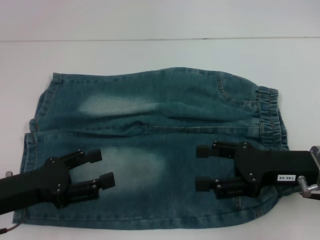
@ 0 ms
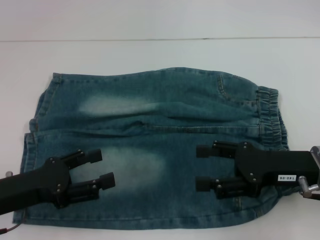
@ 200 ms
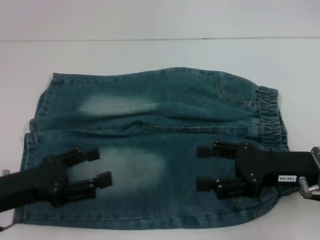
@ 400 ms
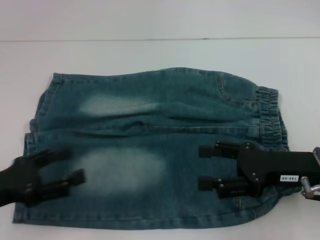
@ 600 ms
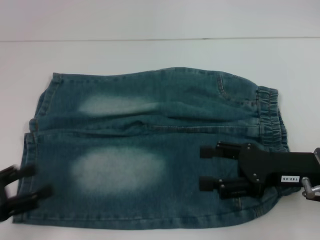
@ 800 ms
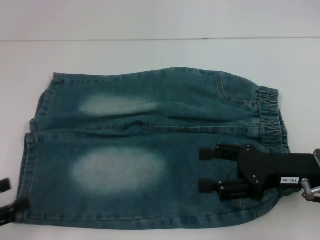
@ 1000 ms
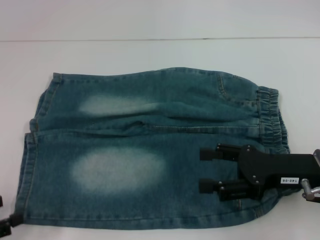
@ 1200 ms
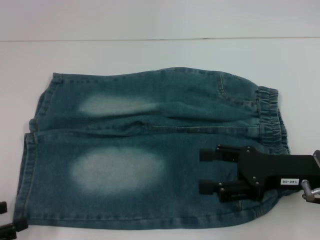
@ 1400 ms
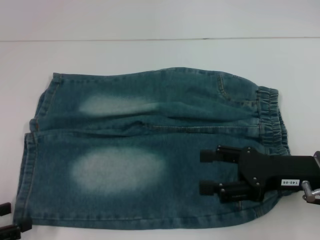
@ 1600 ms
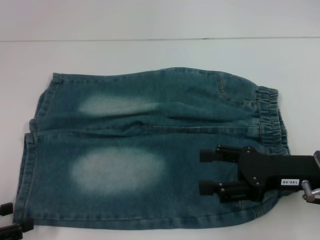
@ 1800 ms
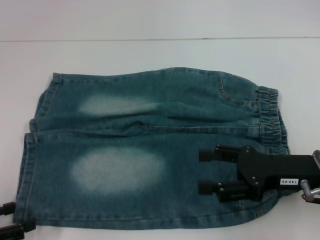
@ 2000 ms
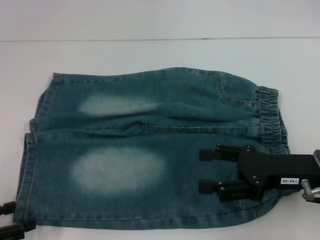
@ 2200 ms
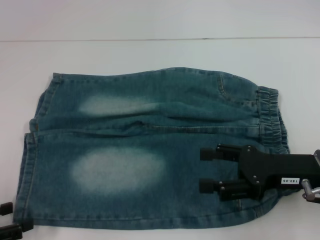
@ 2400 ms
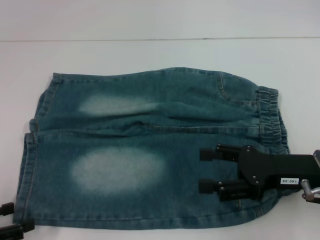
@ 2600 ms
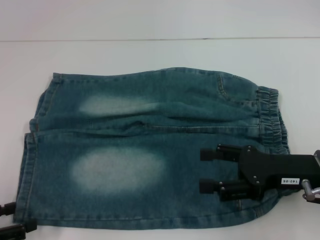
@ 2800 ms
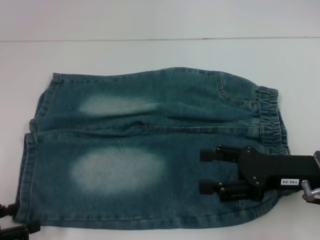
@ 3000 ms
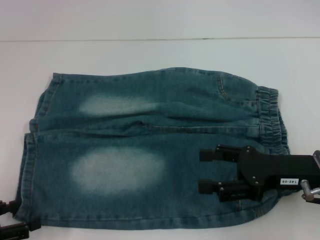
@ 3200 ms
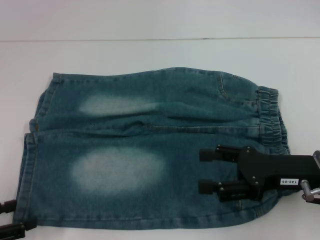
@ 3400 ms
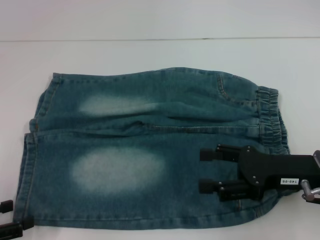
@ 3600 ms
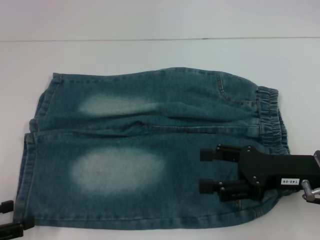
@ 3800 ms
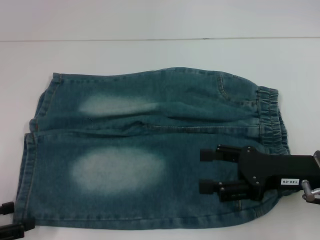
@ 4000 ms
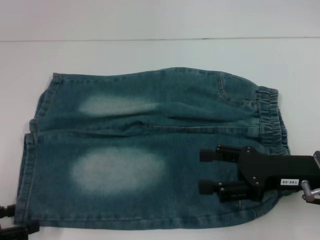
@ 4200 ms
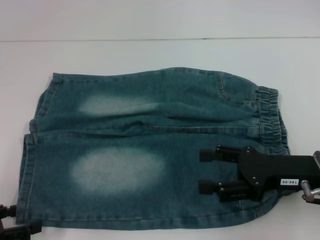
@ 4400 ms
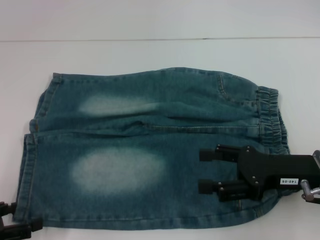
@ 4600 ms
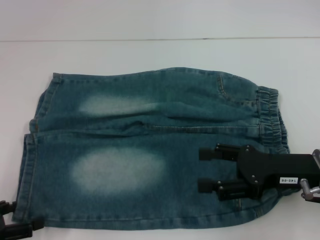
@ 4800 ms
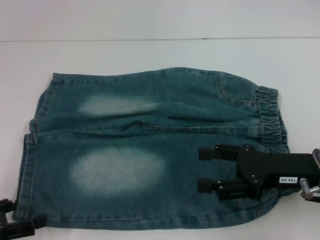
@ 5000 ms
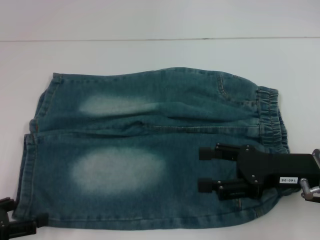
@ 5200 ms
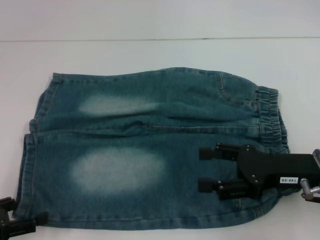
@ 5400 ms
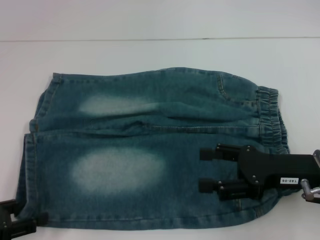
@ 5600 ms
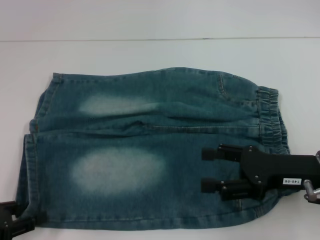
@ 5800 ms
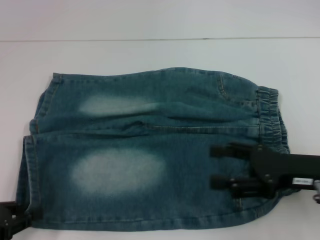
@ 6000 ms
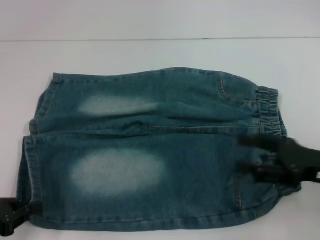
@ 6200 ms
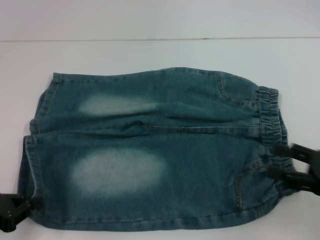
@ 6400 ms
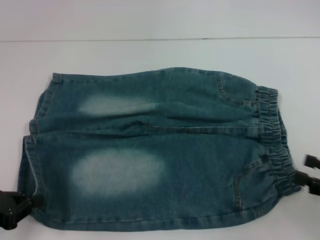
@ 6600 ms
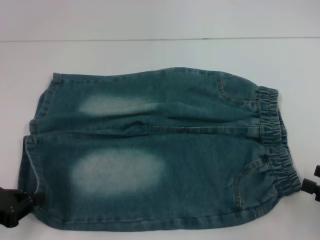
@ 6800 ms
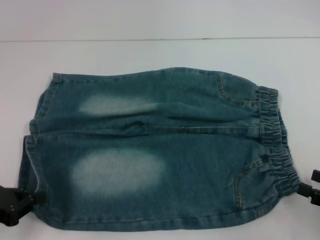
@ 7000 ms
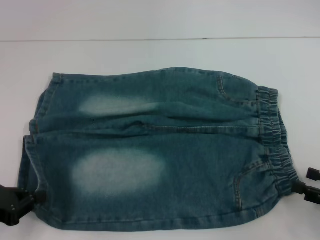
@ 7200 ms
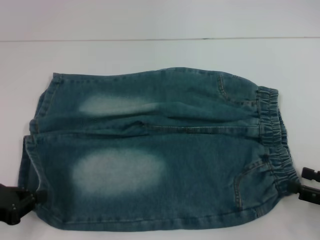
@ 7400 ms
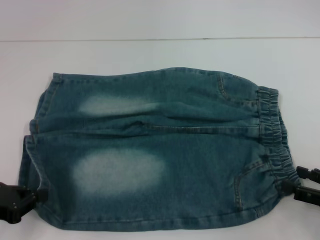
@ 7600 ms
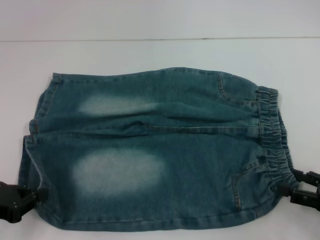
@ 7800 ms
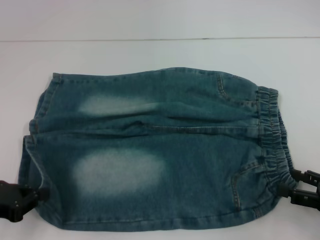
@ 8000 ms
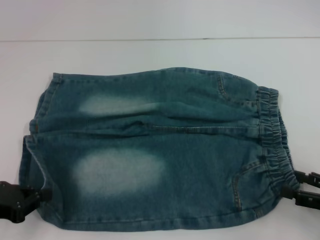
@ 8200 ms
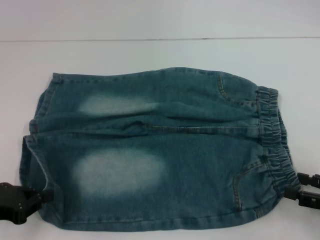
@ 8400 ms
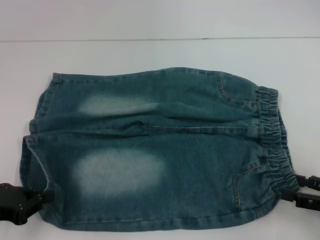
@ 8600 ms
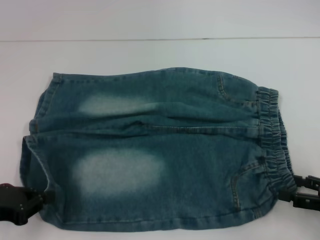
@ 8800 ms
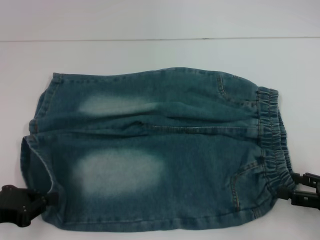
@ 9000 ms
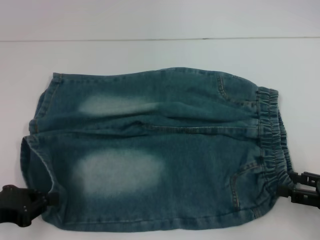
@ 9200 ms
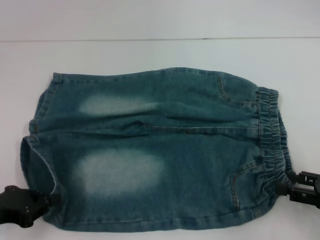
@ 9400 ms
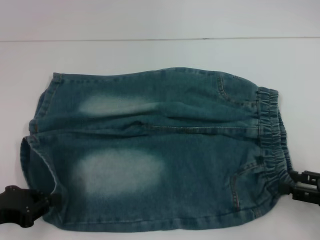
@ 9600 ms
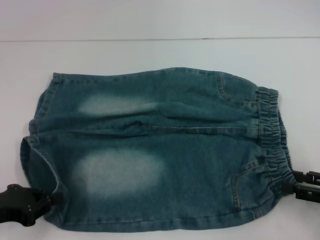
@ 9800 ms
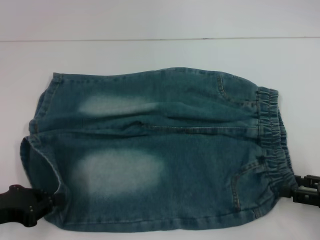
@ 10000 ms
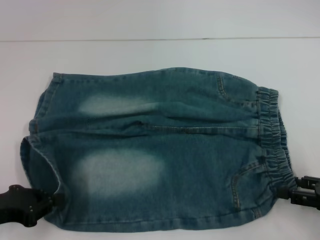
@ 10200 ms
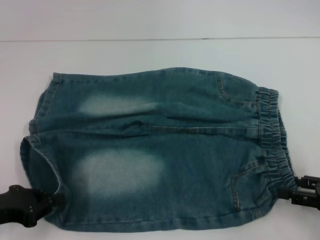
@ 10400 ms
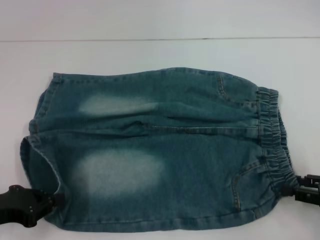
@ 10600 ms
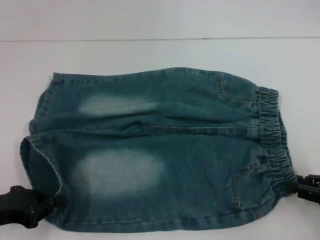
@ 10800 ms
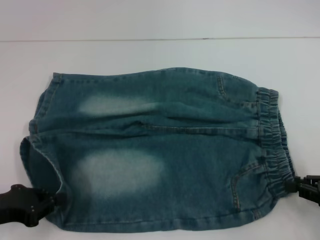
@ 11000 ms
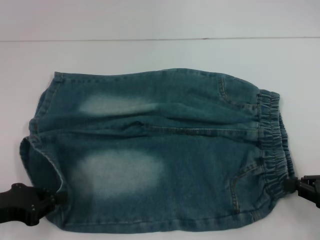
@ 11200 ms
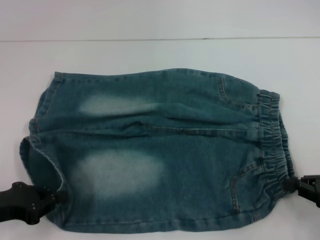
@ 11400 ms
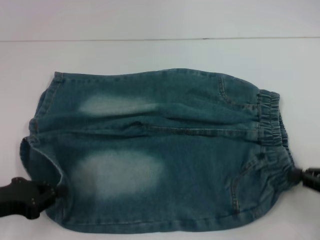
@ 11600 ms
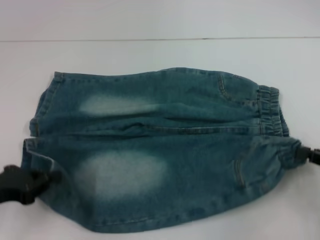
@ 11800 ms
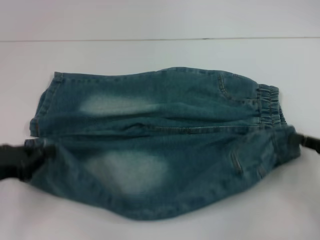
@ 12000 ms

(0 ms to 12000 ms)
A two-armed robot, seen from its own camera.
Step, 0 ms - 6000 ms: Grab the lower left pant leg with your left hand.
Step, 6200 ms - 11000 ms: Hold the lower right waistband with your right hand.
0 ms - 1600 ms: The left gripper shifts some 10 cm to the left and backward.
1600 ms - 3000 ms: Neither gripper changes place.
3000 ms - 4400 ms: Both grippers stay about where they are.
4400 ms - 6000 ms: The left gripper closes its fingers.
6000 ms - 7600 ms: The right gripper is displaced to the right, backward and downward by about 15 cm, while the left gripper closes.
7600 ms - 10400 ms: There are only small adjustments of the grippers.
10400 ms - 12000 ms: The right gripper closes.

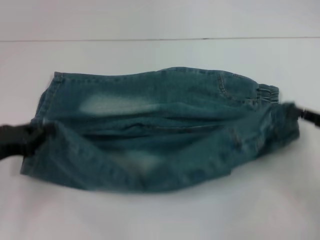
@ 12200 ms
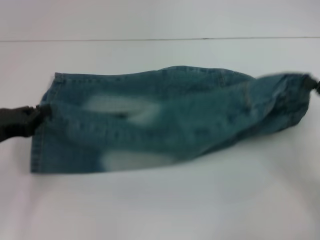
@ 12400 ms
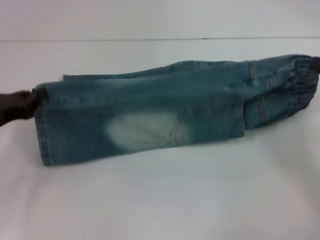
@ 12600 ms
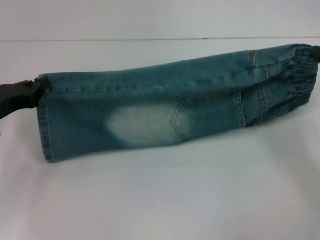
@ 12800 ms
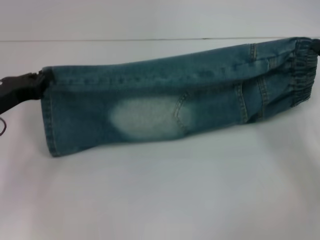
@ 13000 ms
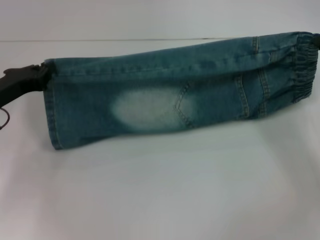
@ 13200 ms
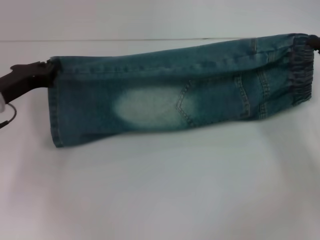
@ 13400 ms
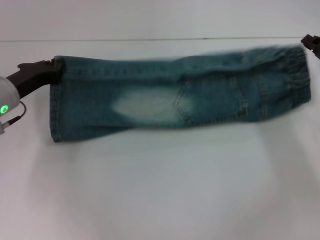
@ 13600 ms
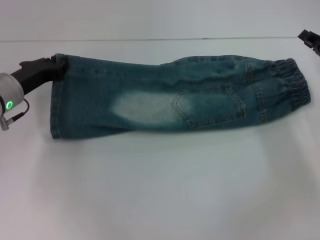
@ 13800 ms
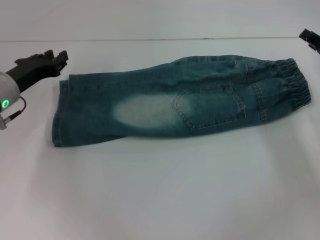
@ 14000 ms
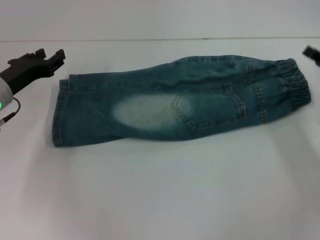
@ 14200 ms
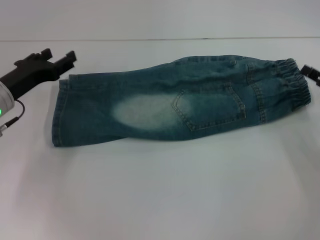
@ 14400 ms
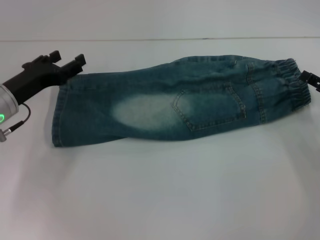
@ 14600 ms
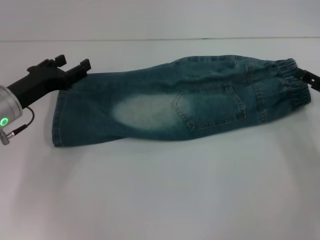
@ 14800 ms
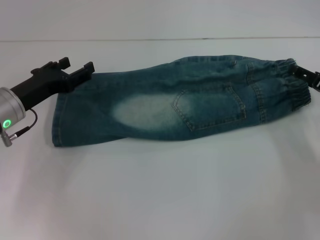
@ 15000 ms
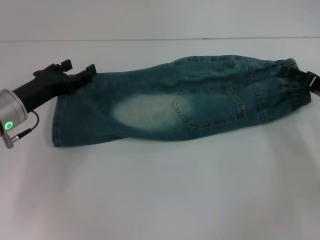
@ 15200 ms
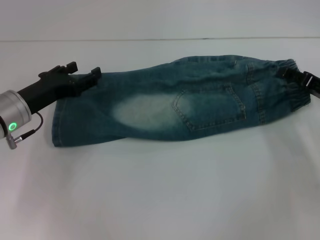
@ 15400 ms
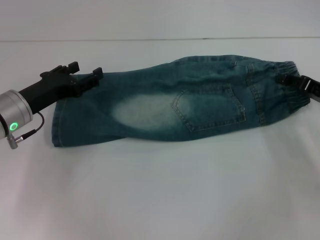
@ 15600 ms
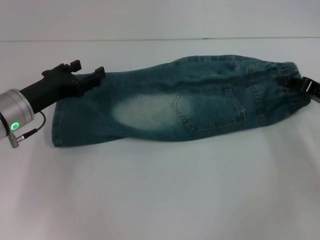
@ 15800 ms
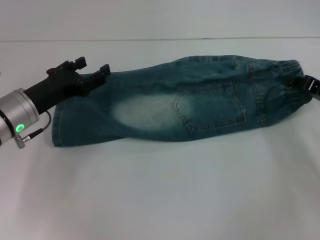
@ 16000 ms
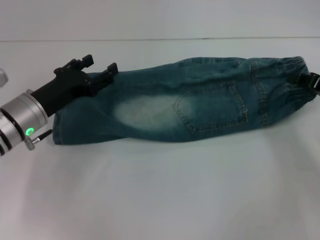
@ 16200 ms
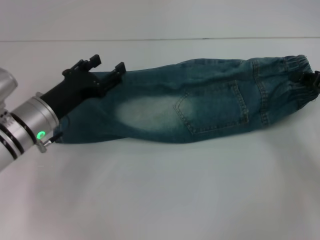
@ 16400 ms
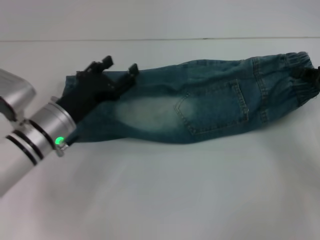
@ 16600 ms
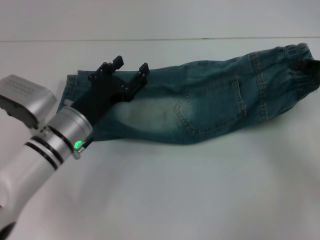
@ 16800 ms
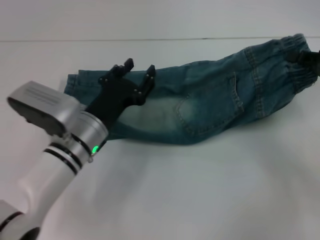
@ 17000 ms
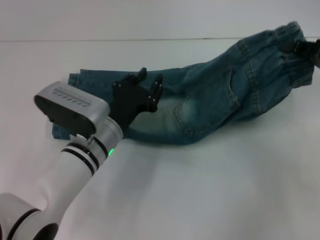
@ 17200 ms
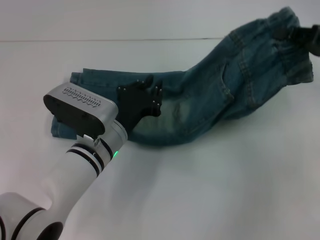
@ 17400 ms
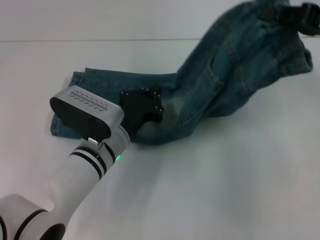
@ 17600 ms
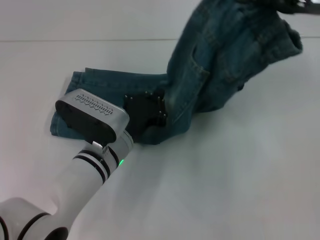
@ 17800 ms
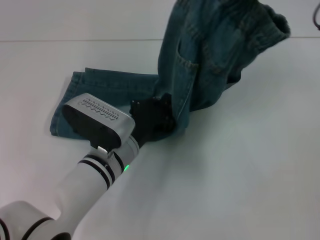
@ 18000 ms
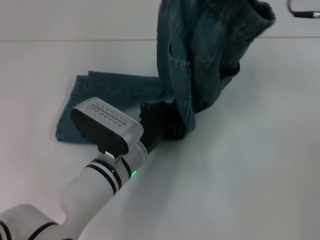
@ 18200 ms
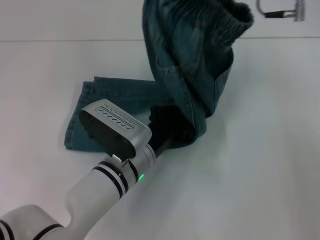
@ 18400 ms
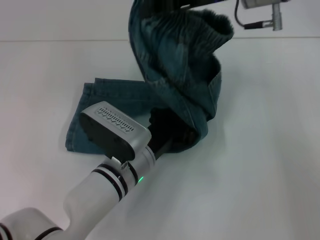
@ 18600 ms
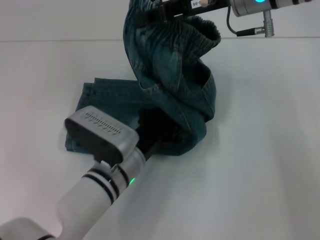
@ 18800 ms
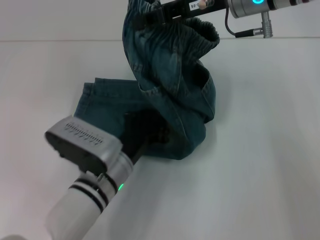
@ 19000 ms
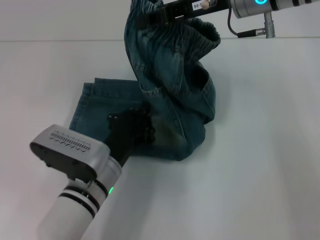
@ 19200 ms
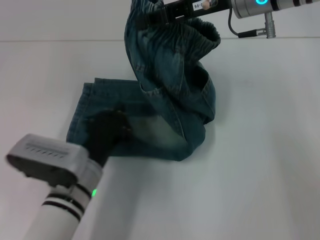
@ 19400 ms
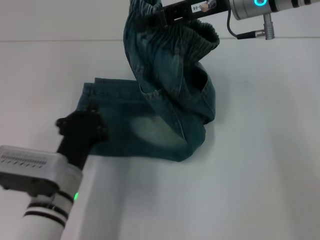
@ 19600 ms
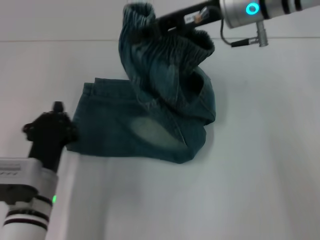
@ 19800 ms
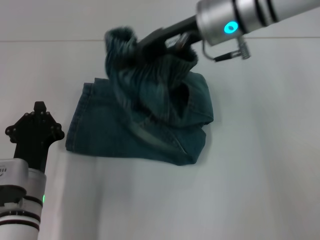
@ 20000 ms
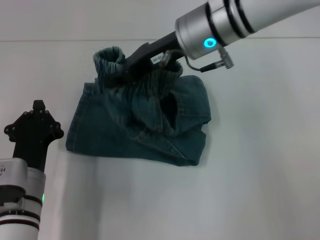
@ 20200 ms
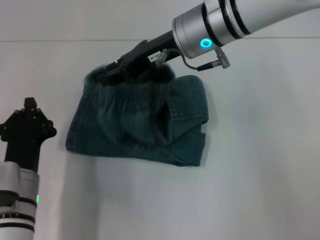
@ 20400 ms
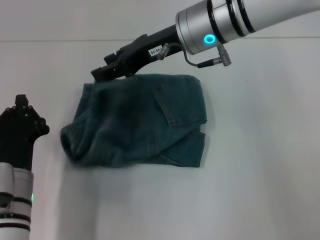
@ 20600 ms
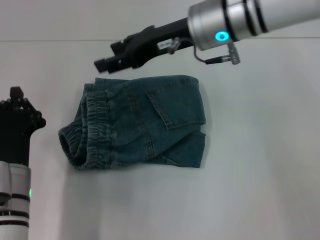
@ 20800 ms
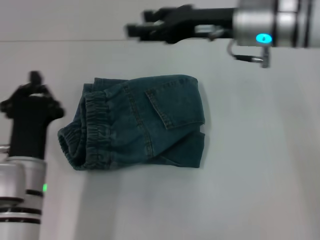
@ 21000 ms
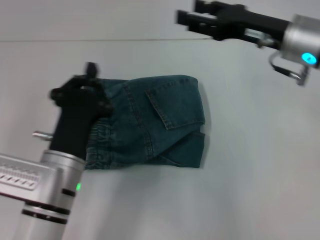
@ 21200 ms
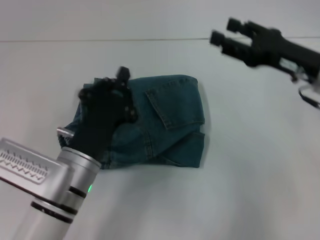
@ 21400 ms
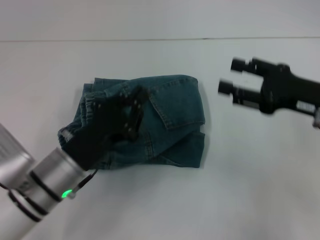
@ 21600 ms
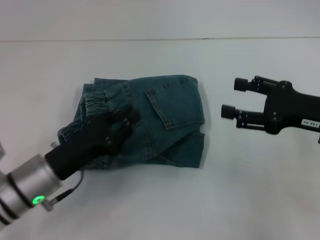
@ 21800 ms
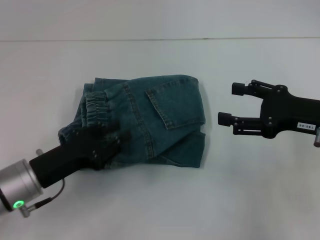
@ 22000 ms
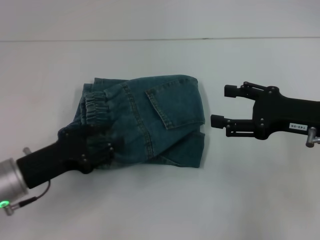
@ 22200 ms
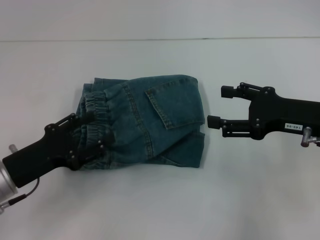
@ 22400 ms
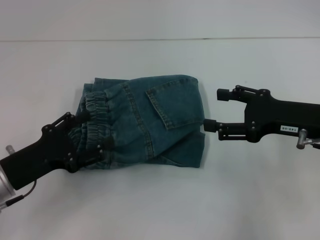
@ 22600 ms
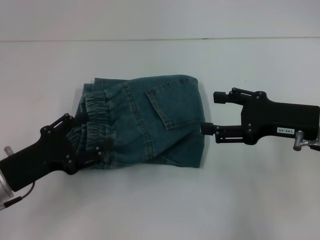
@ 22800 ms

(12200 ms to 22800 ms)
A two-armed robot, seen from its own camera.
Step, 12200 ms - 13600 ms: Fold upward with your right hand.
Step, 14000 ms - 15600 ms: Grab the waistband with your right hand.
Step, 15800 ms - 18400 ms: Press the middle of the pants with your left hand.
Step, 18600 ms - 20600 ms: Fold to the left with your right hand.
12200 ms - 13800 ms: The right gripper moves forward, roughly 10 cm, while the left gripper moves forward and to the right, approximately 15 cm.
13800 ms - 15200 ms: The right gripper opens. Meanwhile the left gripper opens.
15200 ms - 16800 ms: The left gripper moves to the right, about 10 cm; the right gripper closes up.
16800 ms - 18200 ms: The right gripper moves upward, to the left and forward, approximately 25 cm; the left gripper goes about 10 cm to the right, and closes its fingers.
18200 ms - 19800 ms: The left gripper goes approximately 10 cm to the left and backward. The right gripper travels to the left by about 10 cm.
19800 ms - 21200 ms: The right gripper travels to the right and downward by approximately 10 cm, and opens, while the left gripper ends up approximately 5 cm from where it was.
21200 ms - 22800 ms: The right gripper is displaced backward by roughly 10 cm. The left gripper moves to the left, roughly 10 cm, and opens its fingers.
